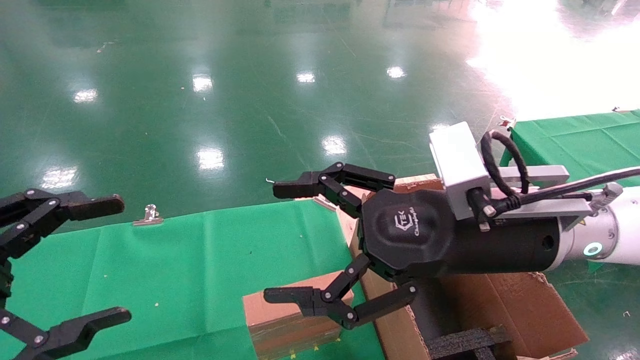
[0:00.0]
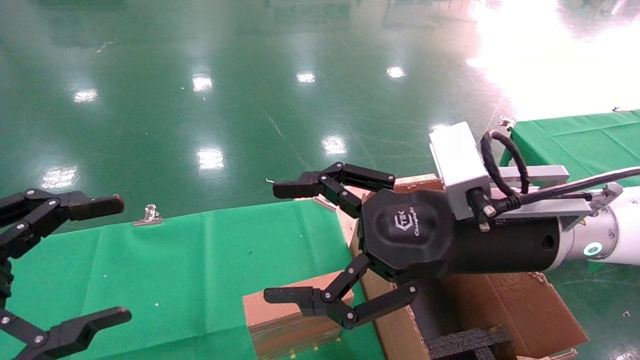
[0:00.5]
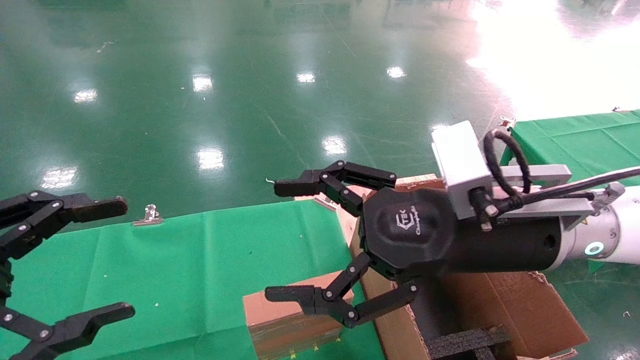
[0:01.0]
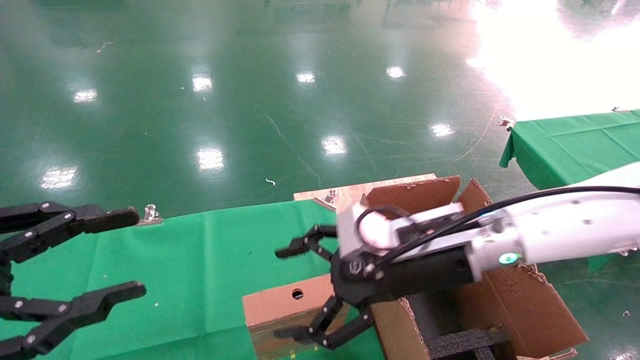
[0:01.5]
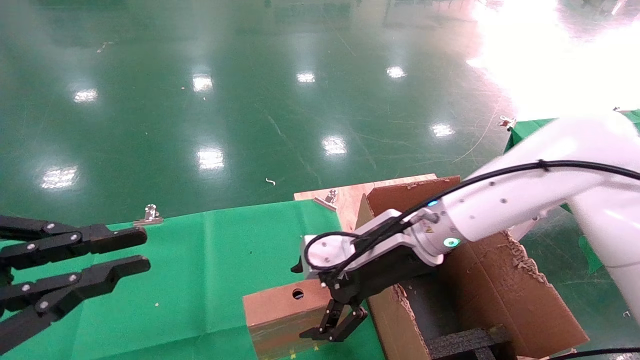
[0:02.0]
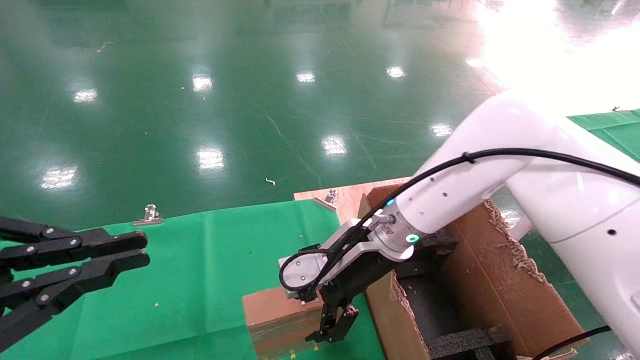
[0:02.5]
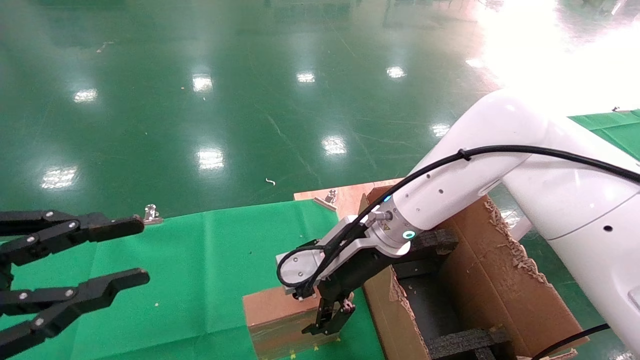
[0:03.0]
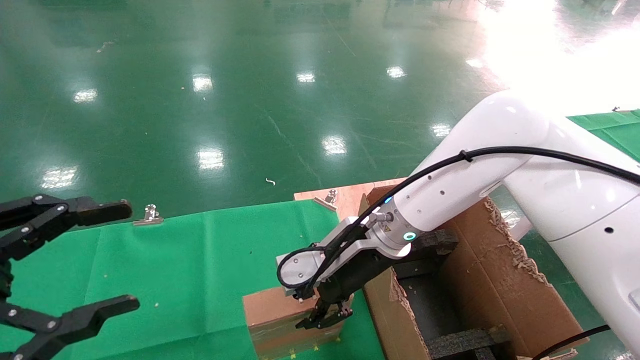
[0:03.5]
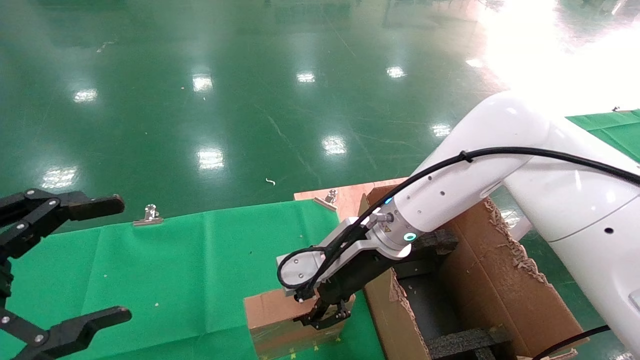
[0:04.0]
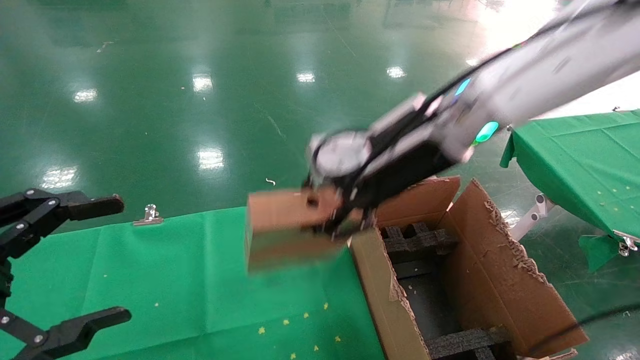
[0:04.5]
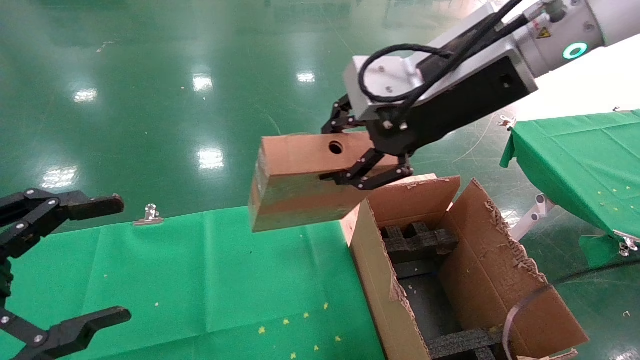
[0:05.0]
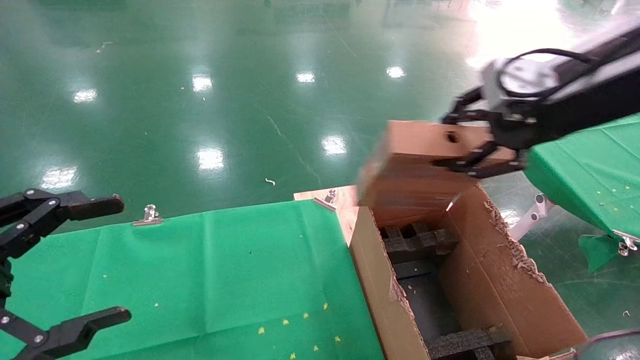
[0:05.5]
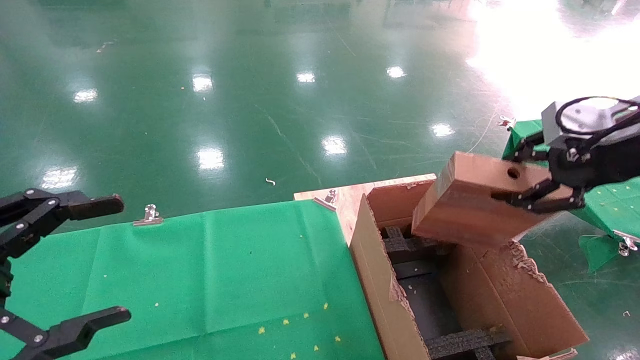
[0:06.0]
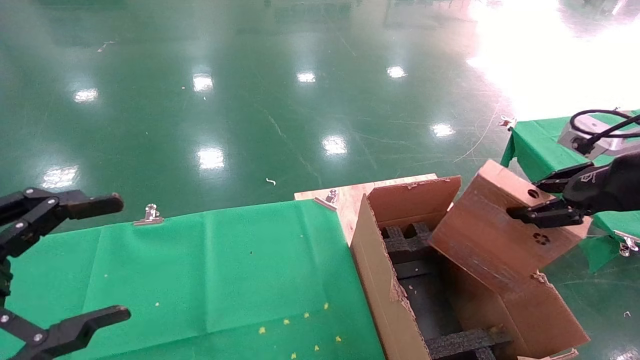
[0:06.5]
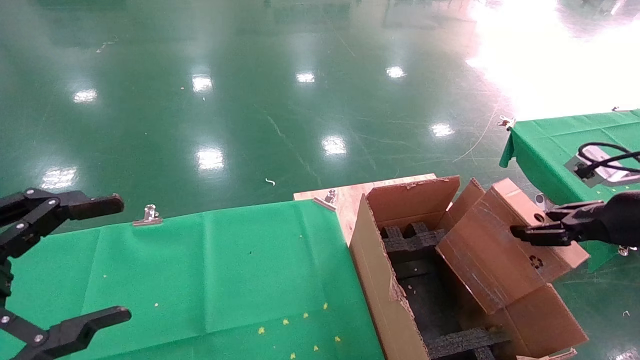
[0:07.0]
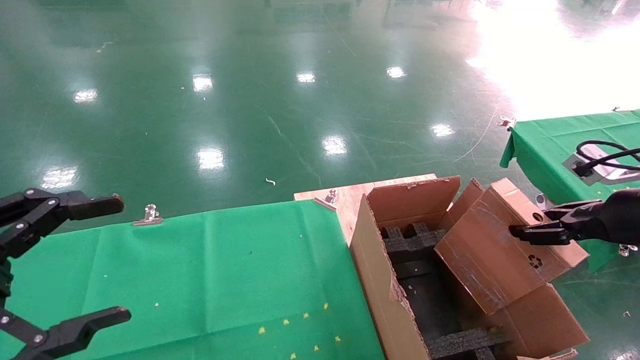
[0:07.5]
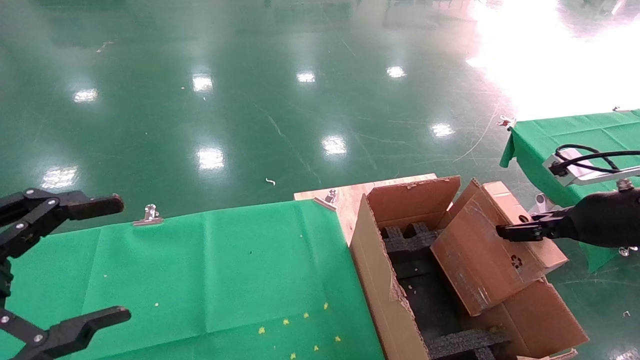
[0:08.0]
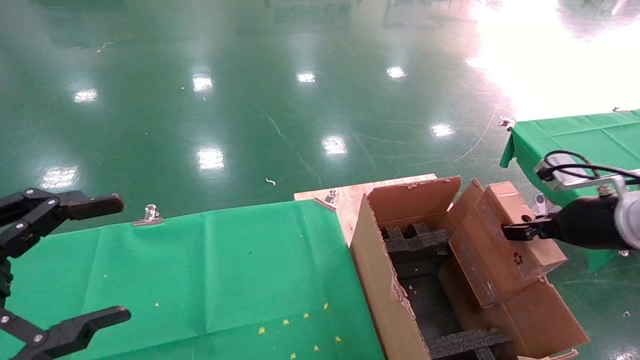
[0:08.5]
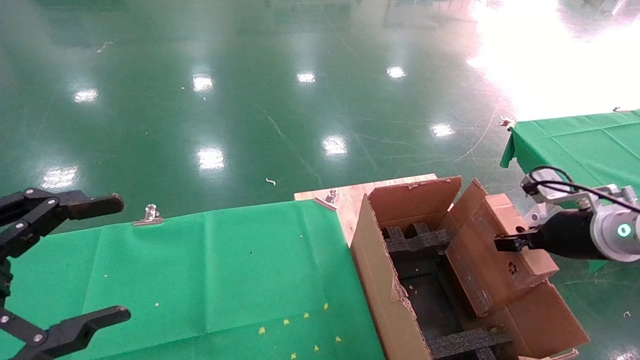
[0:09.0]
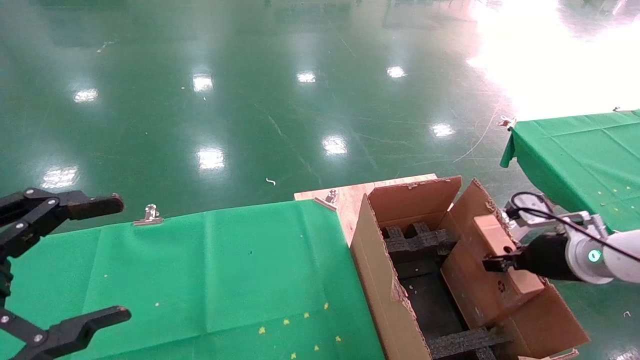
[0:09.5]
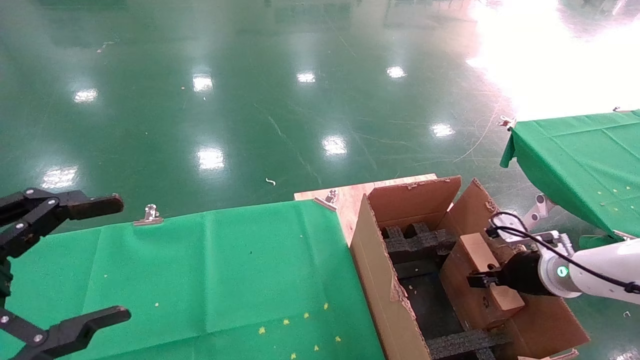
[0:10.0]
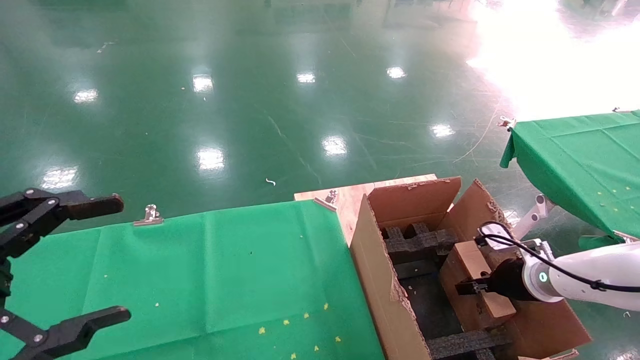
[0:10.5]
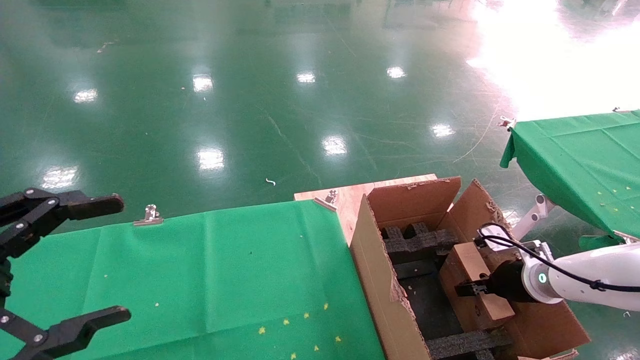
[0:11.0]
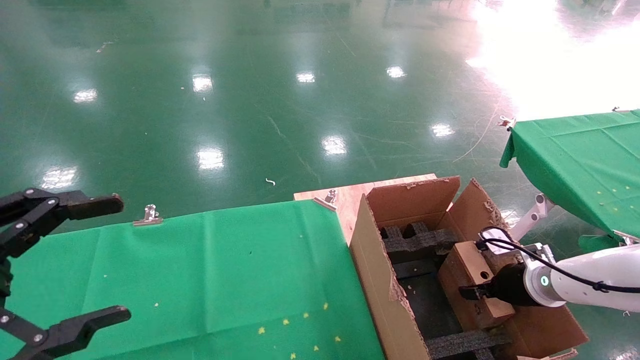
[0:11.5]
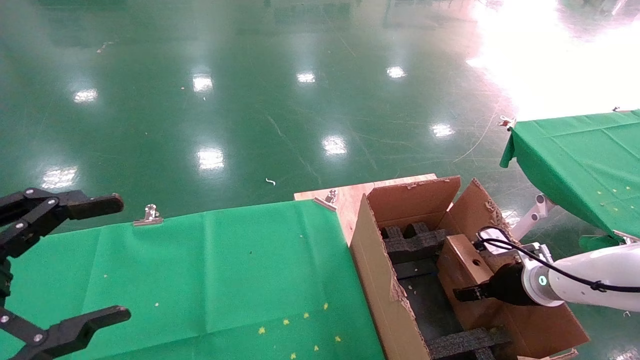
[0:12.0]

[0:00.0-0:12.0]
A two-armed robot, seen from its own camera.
Task of the whole recording: using a robotic arm to pick up a cardboard box and palace it the carton.
Step, 0:01.5 to 0:04.0: Pick up the mouse and the power cord paper box.
0:00.0 to 0:02.0: The left gripper closes, while the right gripper is displaced forward, downward and to the left by roughly 15 cm.
0:02.0 to 0:04.0: The left gripper opens its fingers. The right gripper closes its fingers.
0:04.0 to 0:06.0: The right gripper heads to the right and upward, covering approximately 30 cm.
0:06.0 to 0:08.0: The right gripper moves downward, roughly 10 cm.
0:08.0 to 0:10.0: The right gripper is displaced downward and forward by approximately 15 cm.
0:10.0 to 0:12.0: The right gripper opens its fingers.

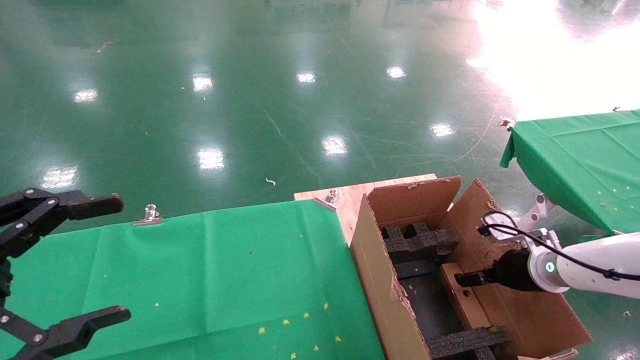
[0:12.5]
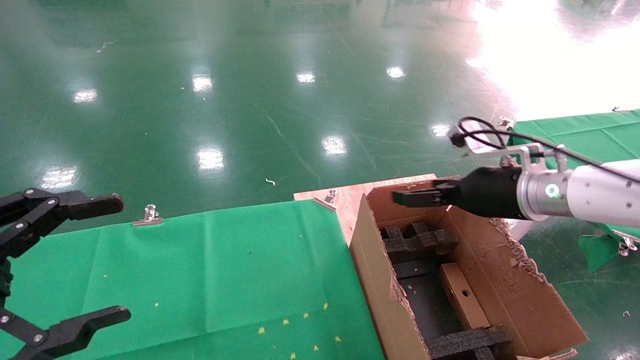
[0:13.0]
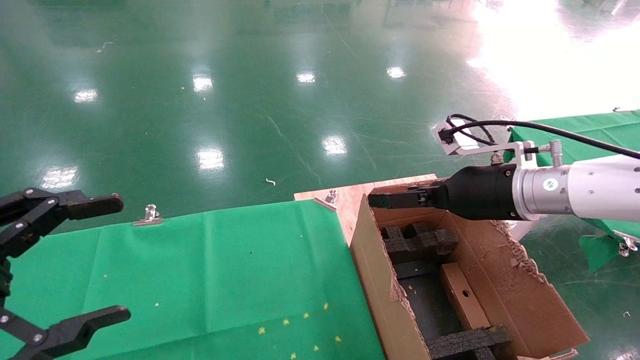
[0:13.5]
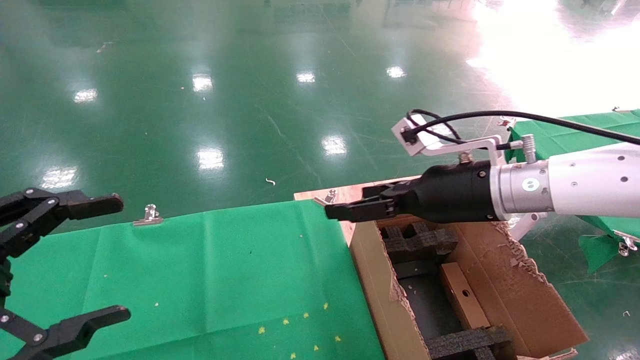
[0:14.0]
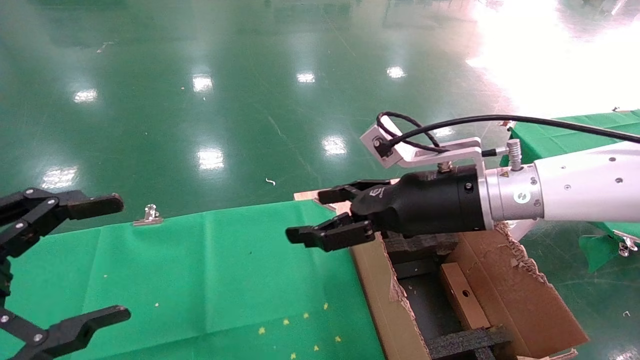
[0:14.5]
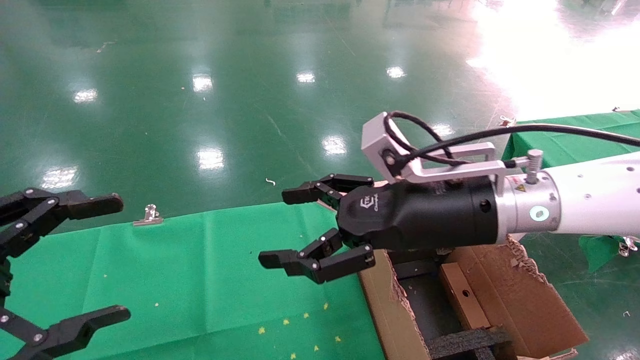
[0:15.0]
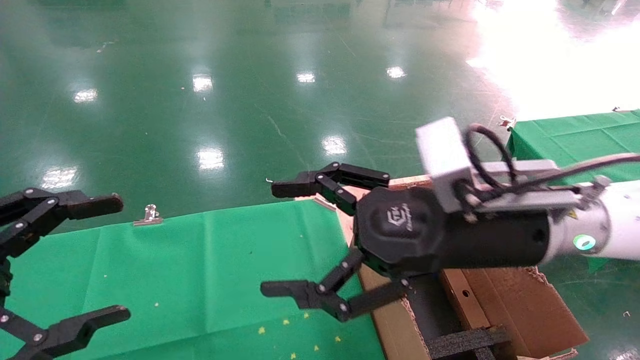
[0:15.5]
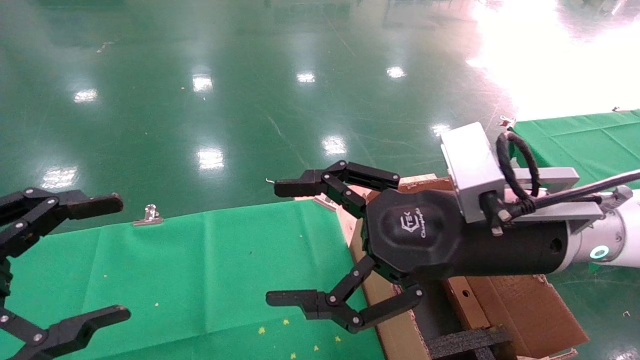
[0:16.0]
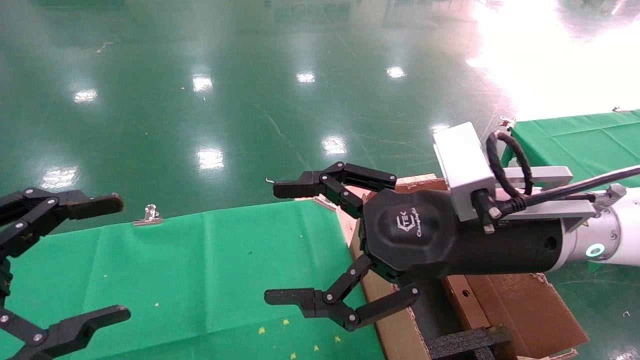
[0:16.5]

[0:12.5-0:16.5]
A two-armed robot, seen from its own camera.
Task of the whole recording: using a robotic arm to pick up a cardboard box and palace it the carton.
0:12.5 to 0:14.5: The right gripper goes roughly 25 cm to the left and upward.
0:14.5 to 0:16.5: The right gripper moves backward, some 5 cm.
